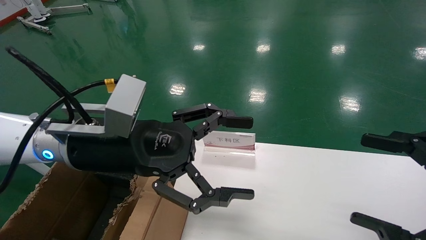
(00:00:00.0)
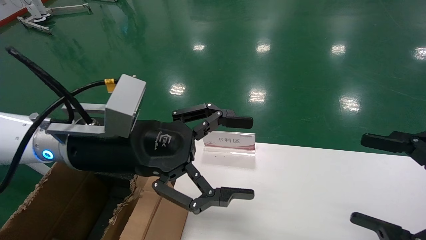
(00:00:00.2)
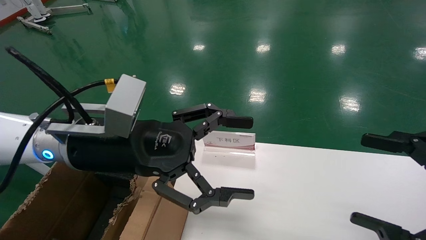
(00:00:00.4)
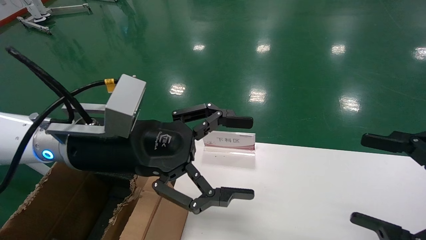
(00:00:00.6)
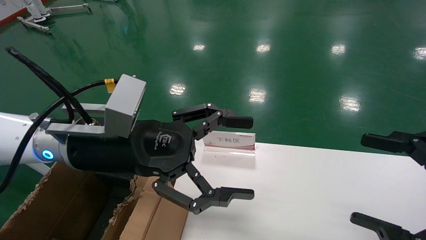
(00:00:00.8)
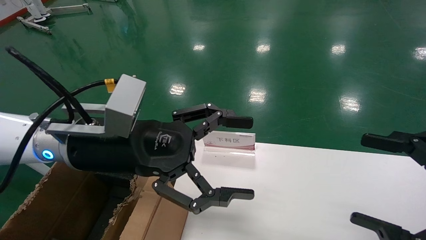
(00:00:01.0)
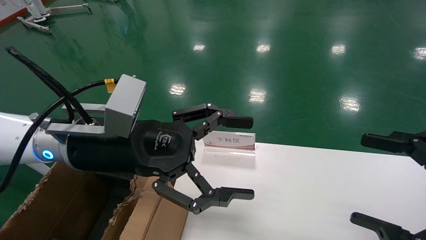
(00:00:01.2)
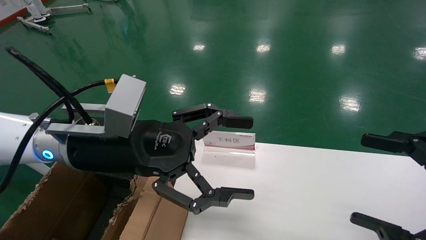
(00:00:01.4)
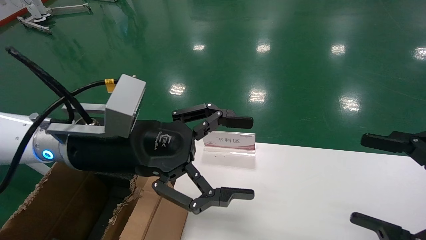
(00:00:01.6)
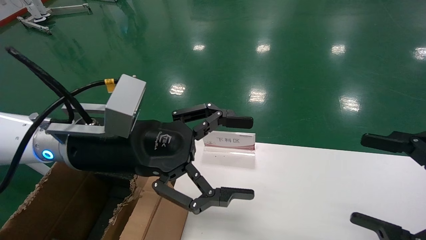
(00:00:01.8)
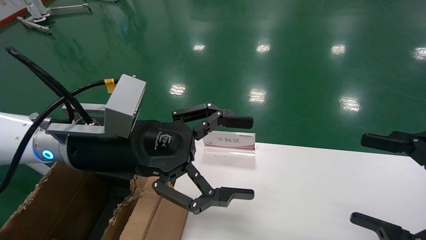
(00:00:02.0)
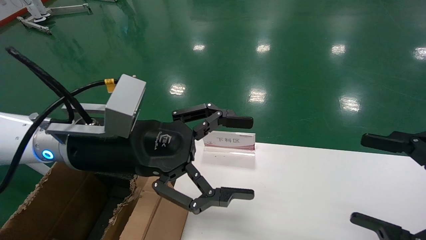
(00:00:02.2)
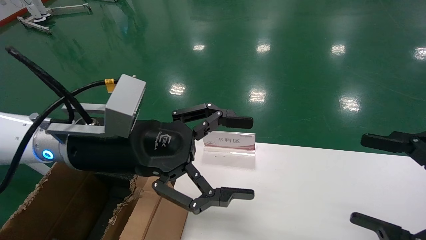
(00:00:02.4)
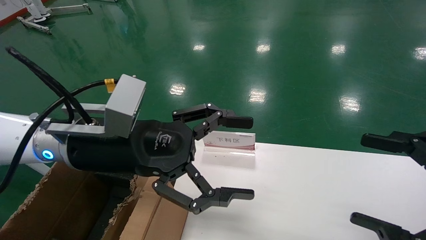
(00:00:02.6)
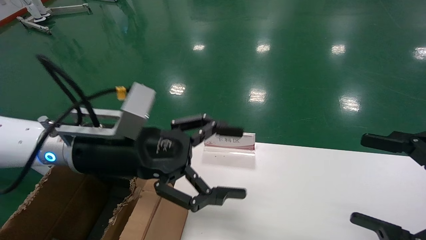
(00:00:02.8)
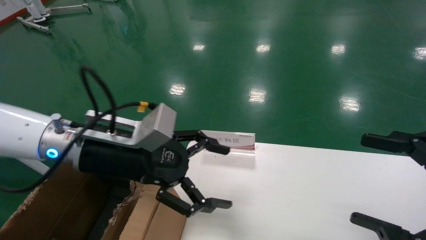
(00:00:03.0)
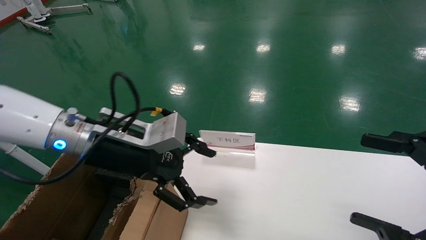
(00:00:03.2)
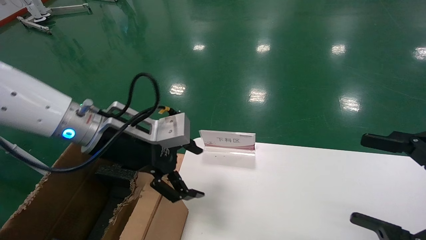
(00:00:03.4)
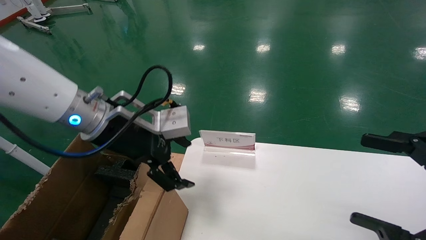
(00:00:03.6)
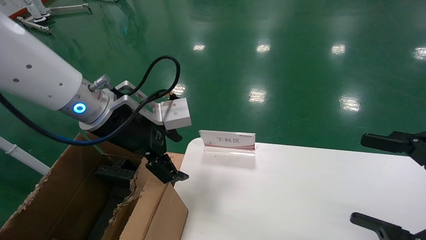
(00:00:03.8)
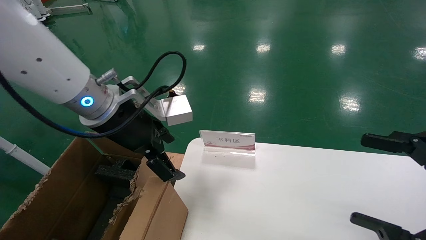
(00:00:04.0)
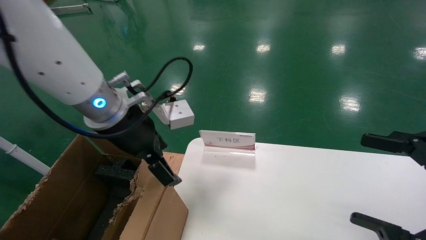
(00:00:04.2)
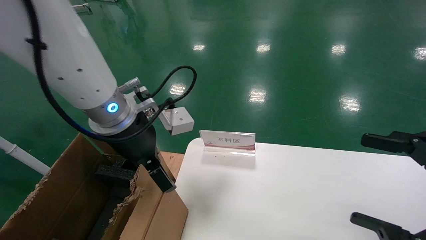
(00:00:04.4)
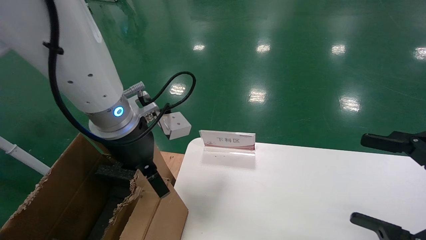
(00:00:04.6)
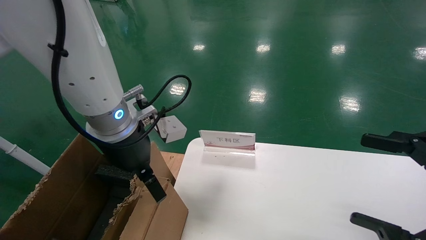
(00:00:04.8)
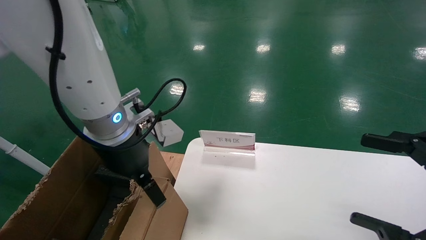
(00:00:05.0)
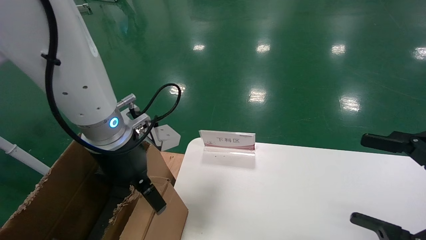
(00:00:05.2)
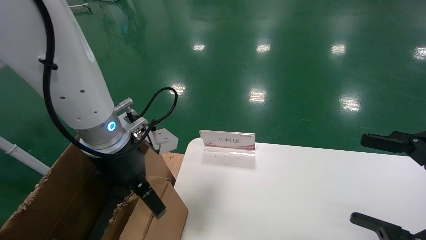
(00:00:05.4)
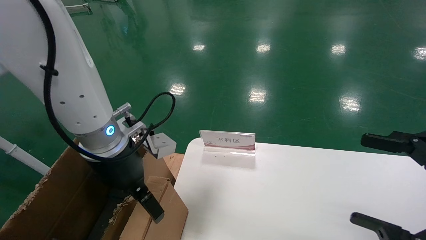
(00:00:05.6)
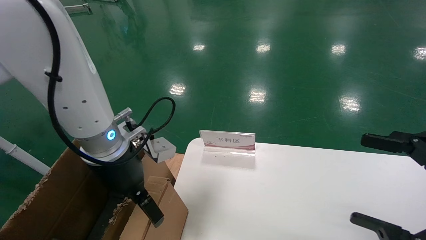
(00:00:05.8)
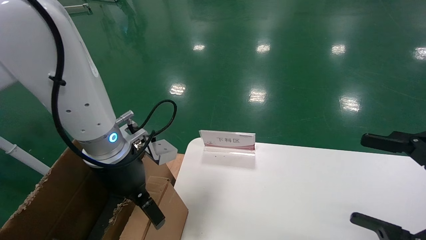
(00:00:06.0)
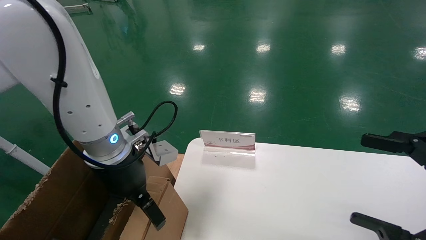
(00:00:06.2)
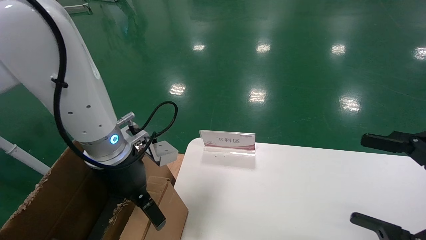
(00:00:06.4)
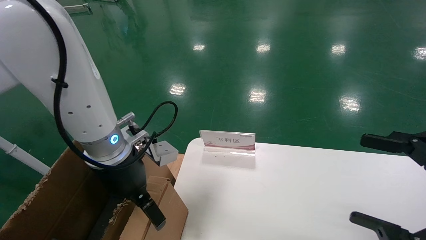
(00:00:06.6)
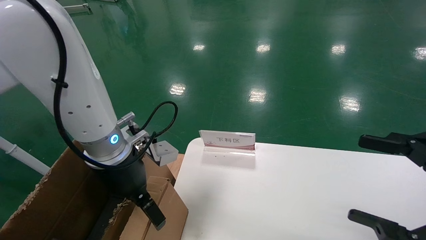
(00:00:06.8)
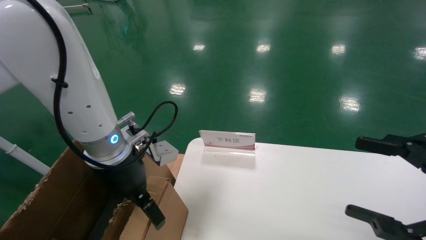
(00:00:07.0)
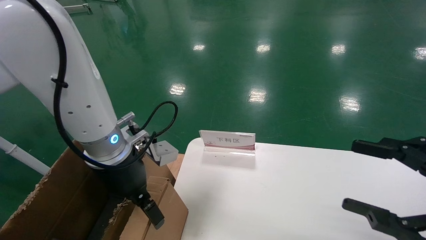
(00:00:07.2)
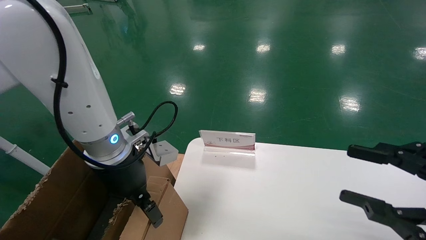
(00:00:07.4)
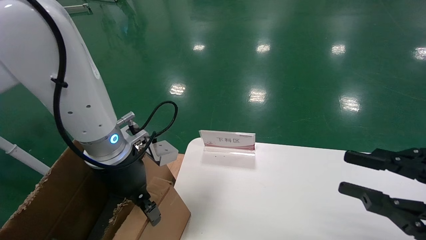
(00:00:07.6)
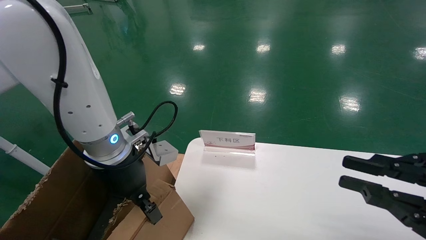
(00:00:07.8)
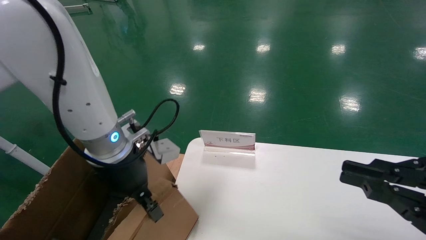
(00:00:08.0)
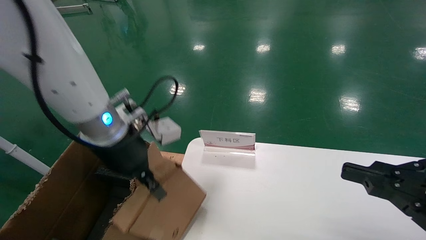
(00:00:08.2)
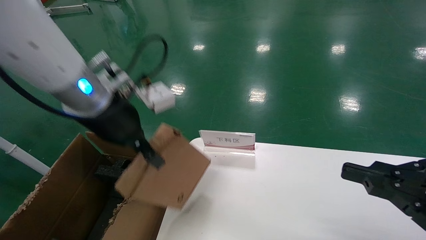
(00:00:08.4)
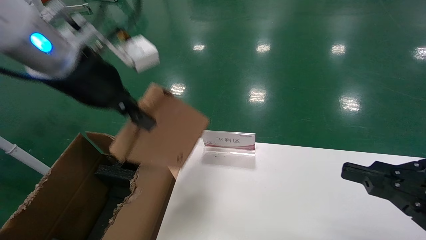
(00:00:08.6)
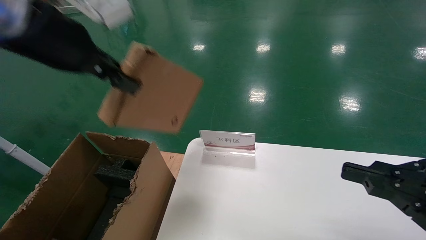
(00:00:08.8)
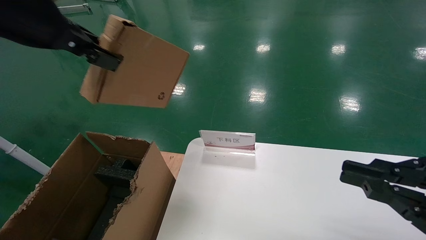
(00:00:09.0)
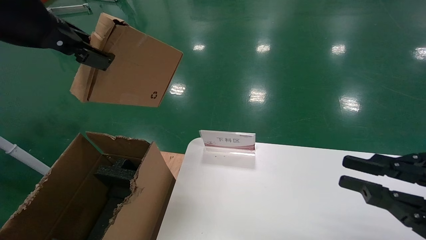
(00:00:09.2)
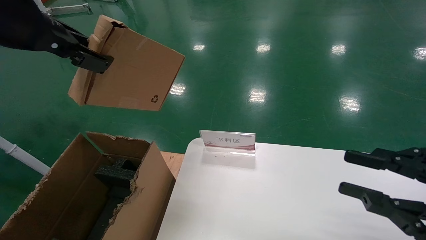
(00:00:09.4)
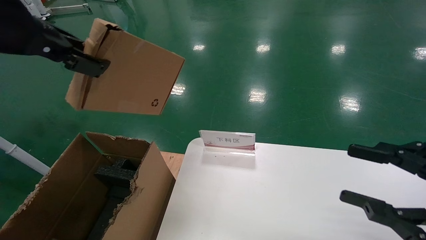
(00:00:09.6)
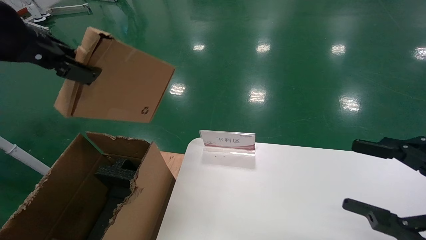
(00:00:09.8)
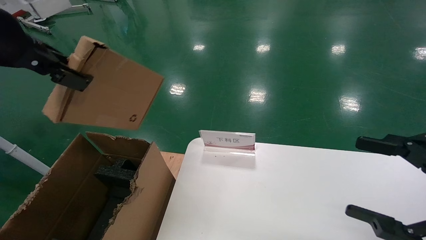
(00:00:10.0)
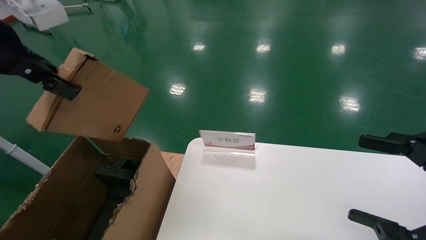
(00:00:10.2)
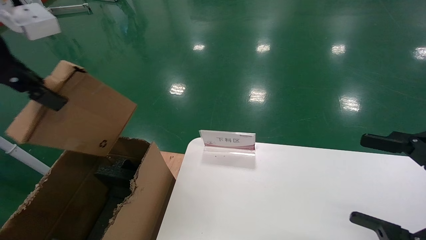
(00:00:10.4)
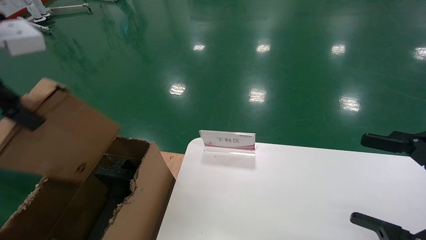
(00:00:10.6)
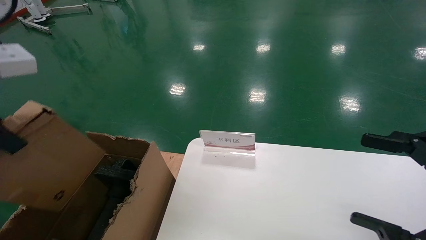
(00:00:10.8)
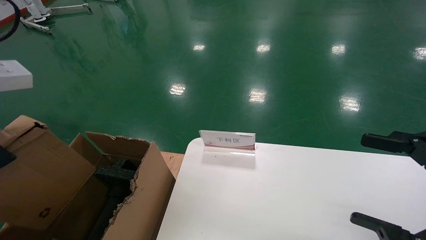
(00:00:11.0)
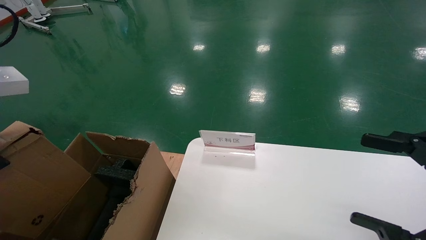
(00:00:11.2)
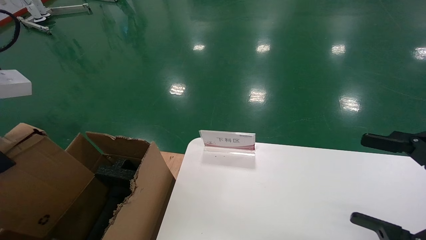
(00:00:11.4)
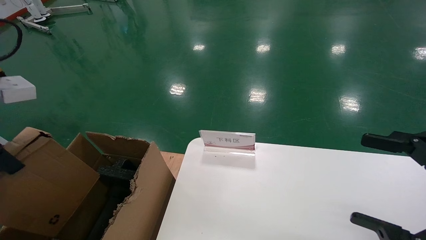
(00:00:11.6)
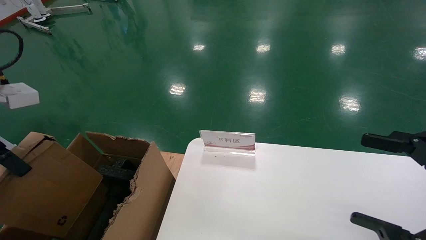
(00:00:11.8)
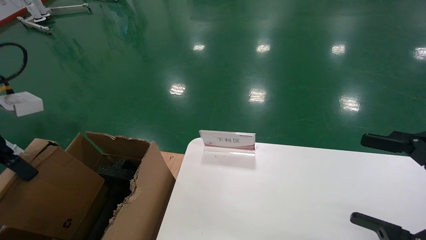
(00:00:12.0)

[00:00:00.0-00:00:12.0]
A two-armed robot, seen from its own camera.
Task of the whole recording: pick up the small cardboard box and load it into the large cardboard box.
Step, 00:00:00.0 to 00:00:07.6: Grasp the paper box.
00:00:00.0 to 00:00:01.6: The two grippers keep their place.
00:00:03.0 to 00:00:04.4: The left gripper ends up roughly 5 cm from where it was.
00:00:04.4 to 00:00:06.0: The left gripper moves downward, some 5 cm.
00:00:06.0 to 00:00:07.6: The left gripper closes up. The right gripper closes up.
00:00:07.6 to 00:00:09.0: The right gripper closes its fingers. Meanwhile the left gripper shifts approximately 20 cm upward, and closes up.
00:00:09.0 to 00:00:10.4: The right gripper opens up, while the left gripper changes place by some 5 cm.
00:00:10.4 to 00:00:12.0: The left gripper goes approximately 15 cm downward and to the left.

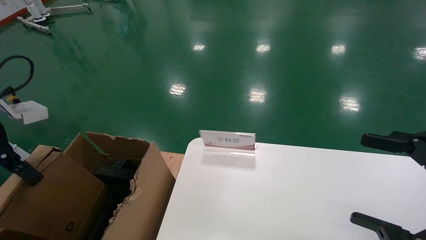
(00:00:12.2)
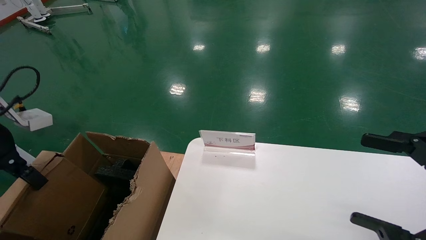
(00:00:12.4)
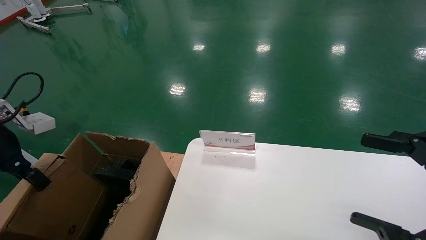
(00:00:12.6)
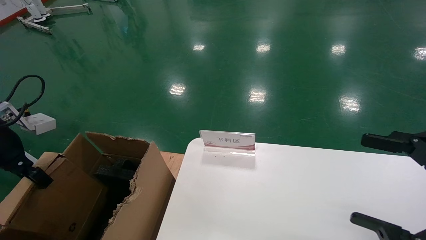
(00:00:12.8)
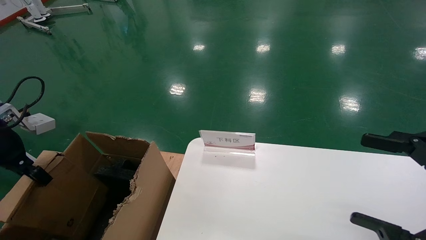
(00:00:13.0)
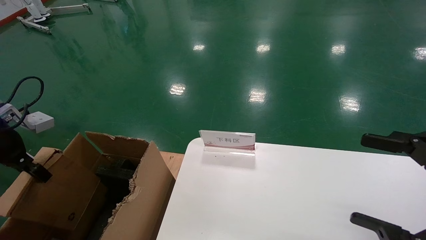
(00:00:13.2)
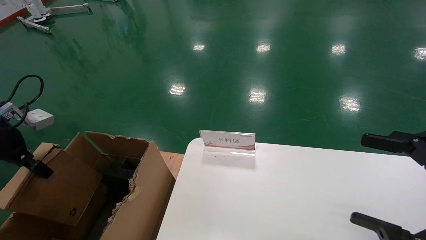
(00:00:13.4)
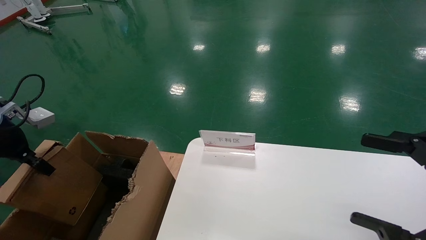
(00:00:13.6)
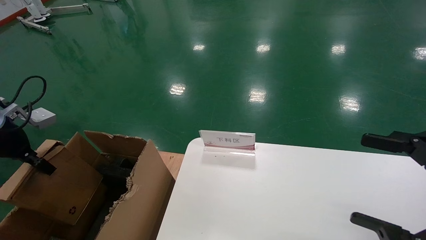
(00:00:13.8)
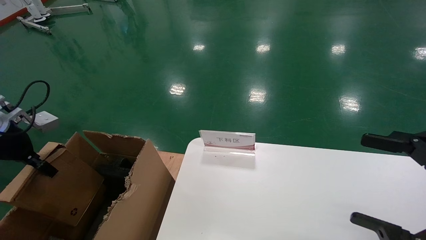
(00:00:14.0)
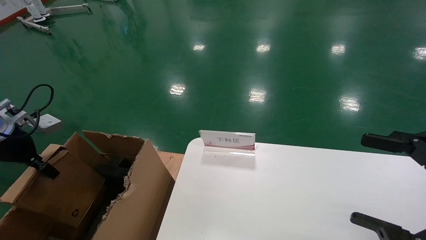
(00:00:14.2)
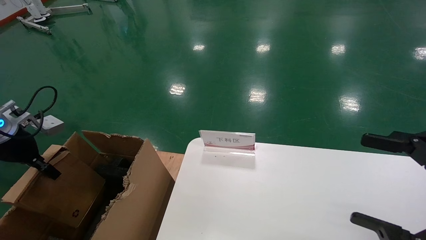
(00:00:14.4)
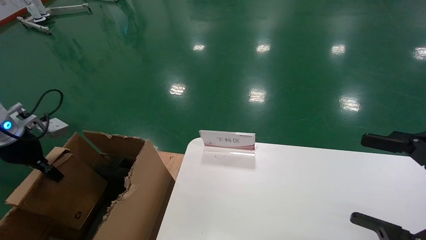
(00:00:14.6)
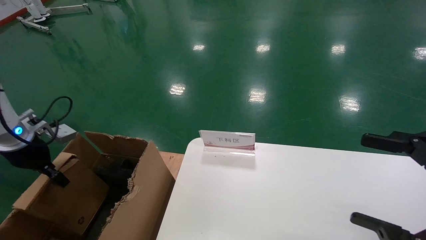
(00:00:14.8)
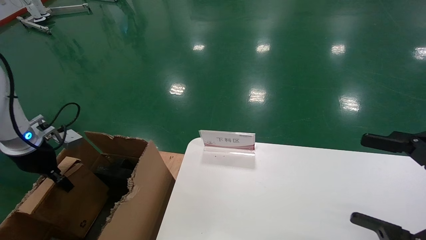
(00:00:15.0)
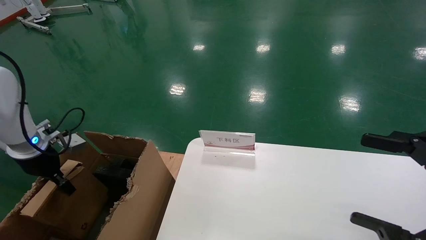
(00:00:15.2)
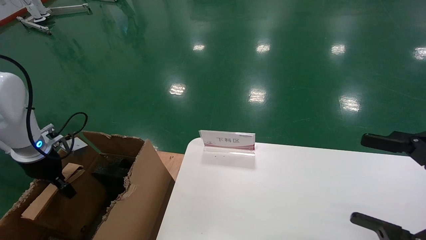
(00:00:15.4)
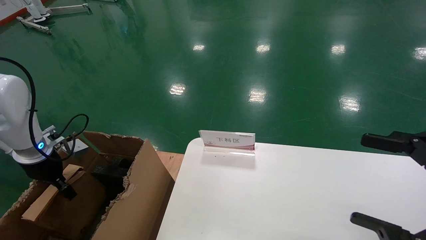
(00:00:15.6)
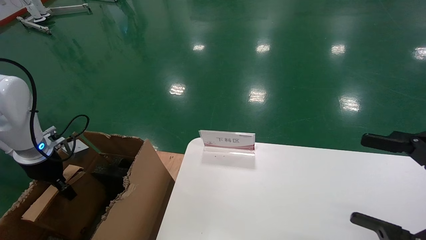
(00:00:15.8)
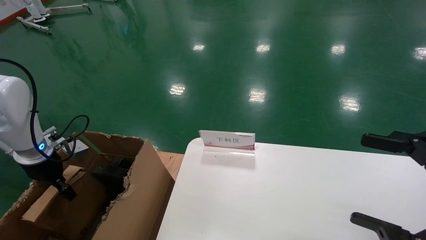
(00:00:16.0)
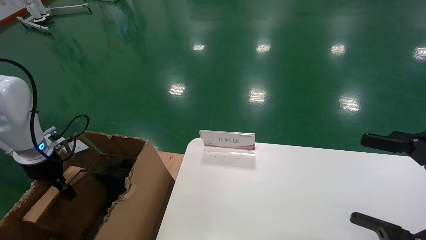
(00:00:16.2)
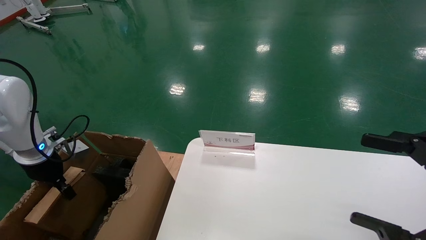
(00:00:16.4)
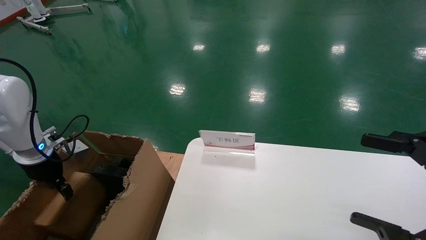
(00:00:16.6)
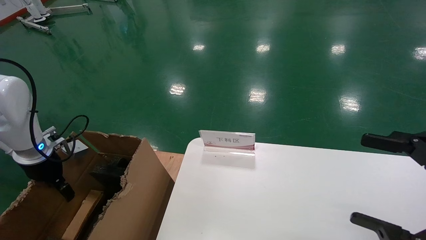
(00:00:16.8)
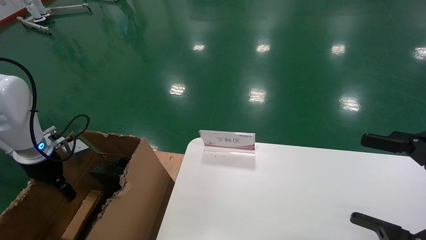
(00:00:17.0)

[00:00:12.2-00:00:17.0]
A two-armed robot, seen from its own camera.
Task of the whole recording: pick up the small cardboard box and load it into the large cardboard box.
Step, 00:00:12.2 to 00:00:16.8: Place the paper box in the another big box.
00:00:12.2 to 00:00:13.8: The left gripper is displaced to the left, downward and forward by some 10 cm.
00:00:13.8 to 00:00:15.4: The left gripper heads downward and forward, covering roughly 10 cm.
00:00:15.4 to 00:00:17.0: The left gripper opens.
